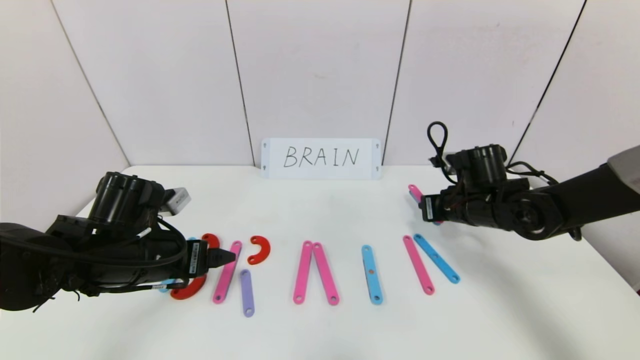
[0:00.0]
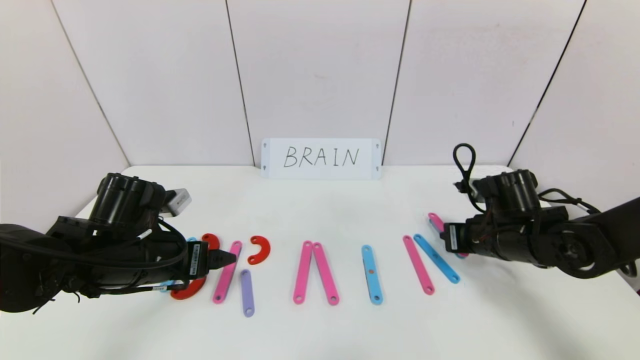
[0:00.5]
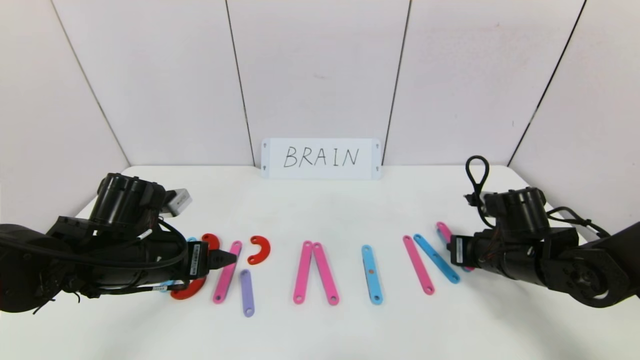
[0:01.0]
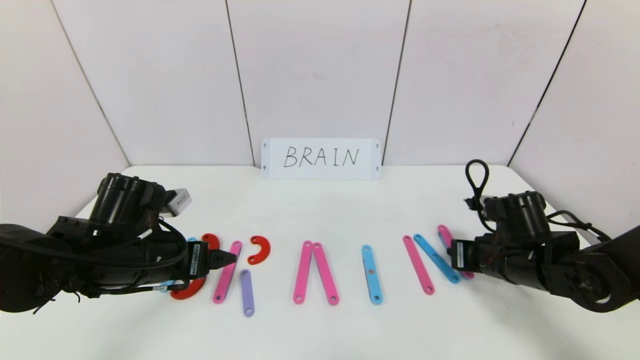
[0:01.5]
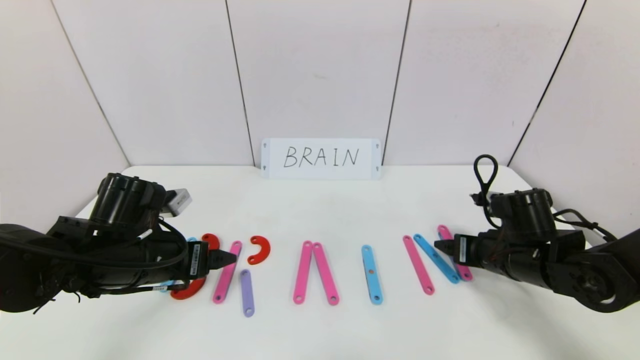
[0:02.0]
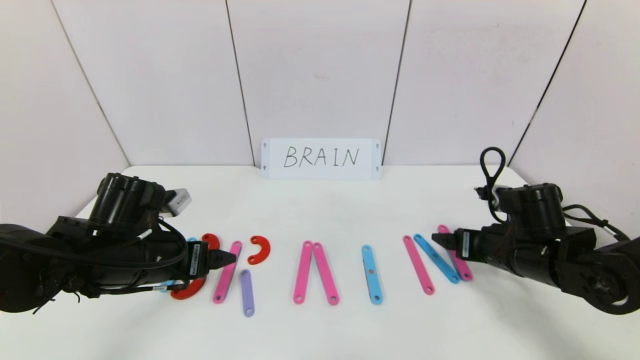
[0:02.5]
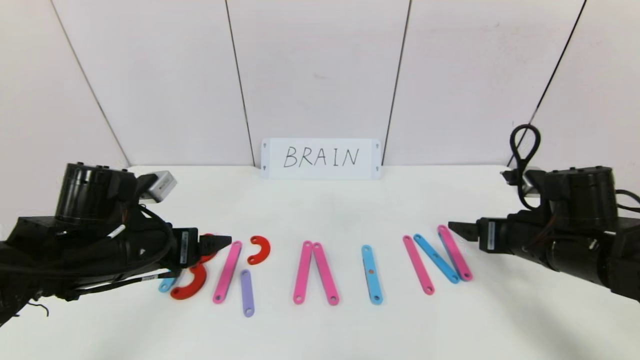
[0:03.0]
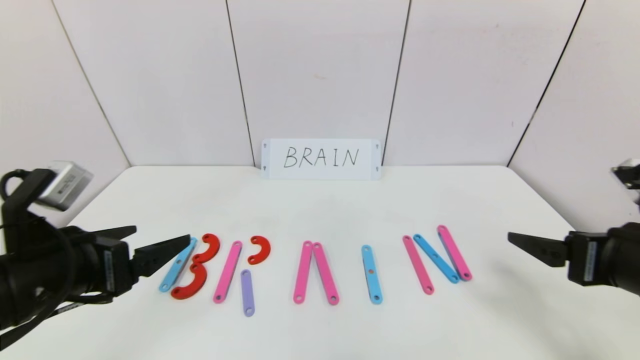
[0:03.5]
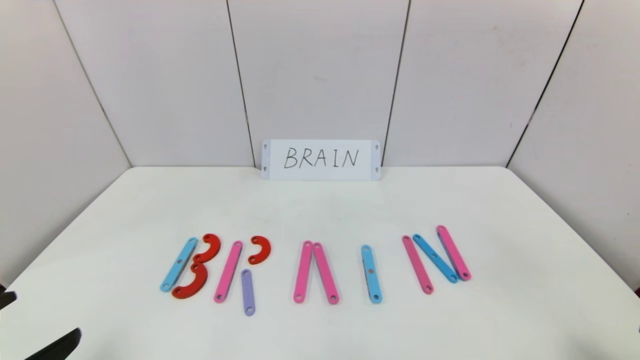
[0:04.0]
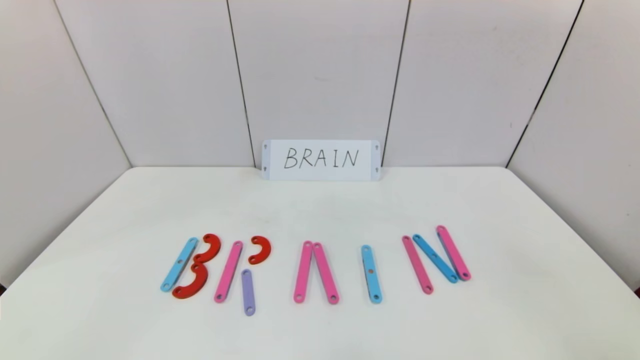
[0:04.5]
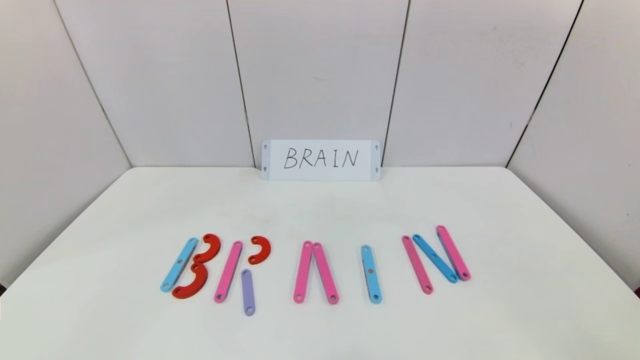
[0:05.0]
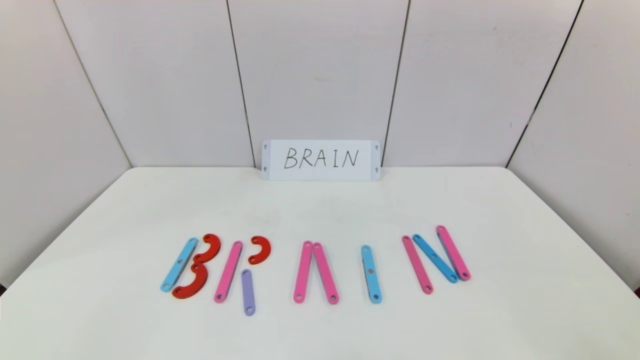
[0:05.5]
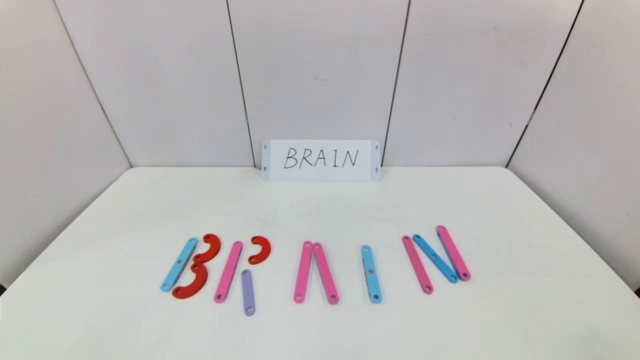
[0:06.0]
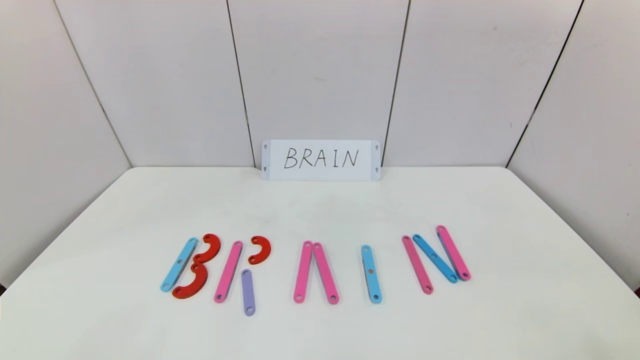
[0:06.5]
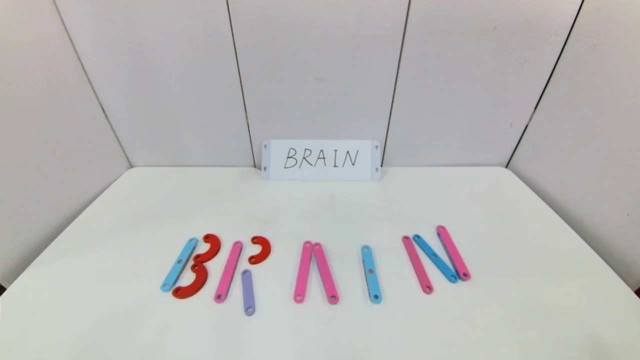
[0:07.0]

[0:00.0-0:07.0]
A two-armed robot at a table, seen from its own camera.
Task of the whole recording: rearrange the word baai as brain.
Step, 0:00.0 to 0:02.5: Place the character N after character I.
0:00.0 to 0:02.0: The right gripper moves backward, some 10 cm, and opens.
0:02.0 to 0:03.5: The left gripper is displaced backward and upward by approximately 10 cm. Meanwhile the right gripper is displaced backward and upward by some 15 cm.
0:03.5 to 0:05.0: The grippers both shift backward by approximately 20 cm.

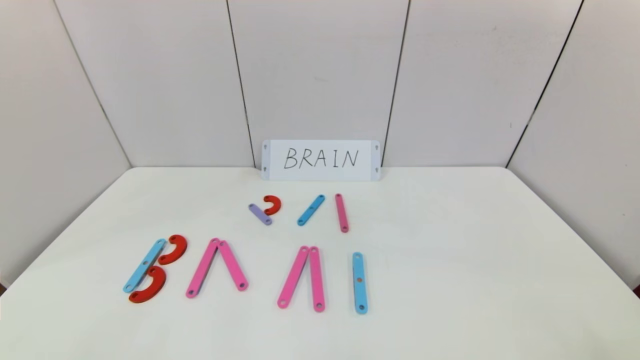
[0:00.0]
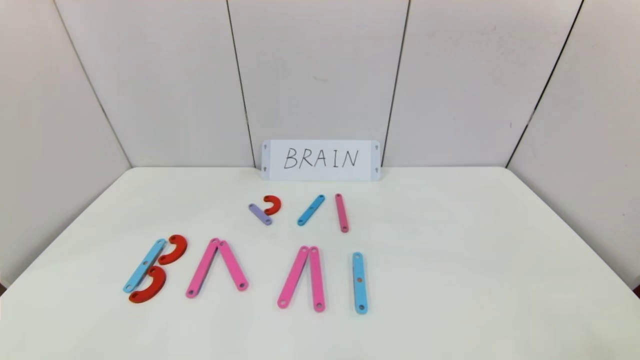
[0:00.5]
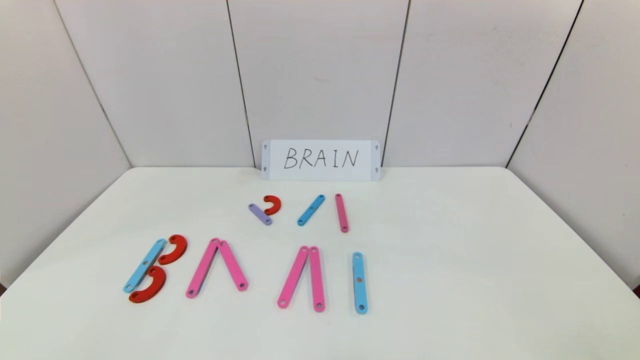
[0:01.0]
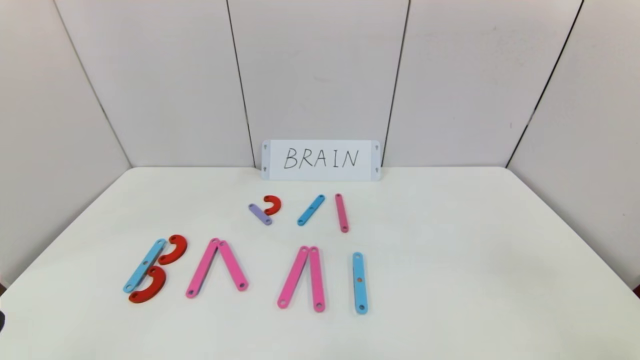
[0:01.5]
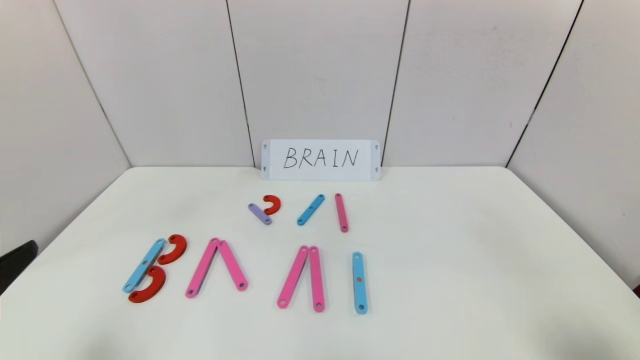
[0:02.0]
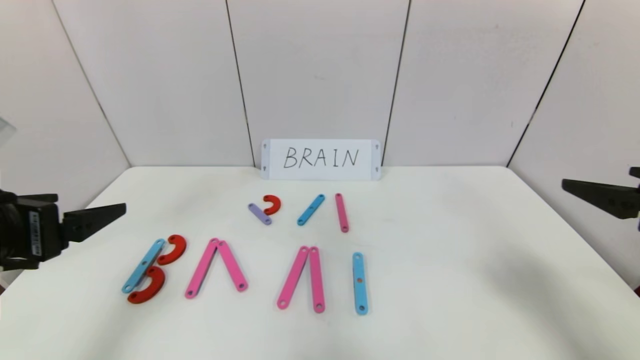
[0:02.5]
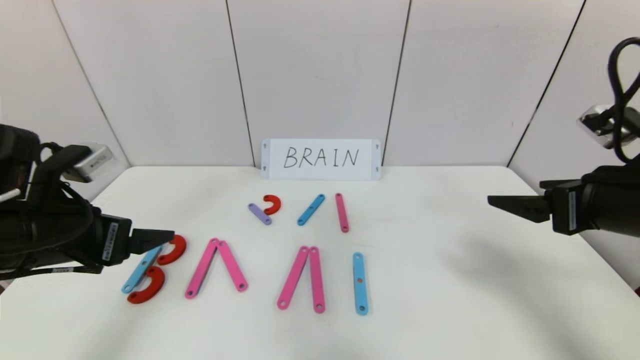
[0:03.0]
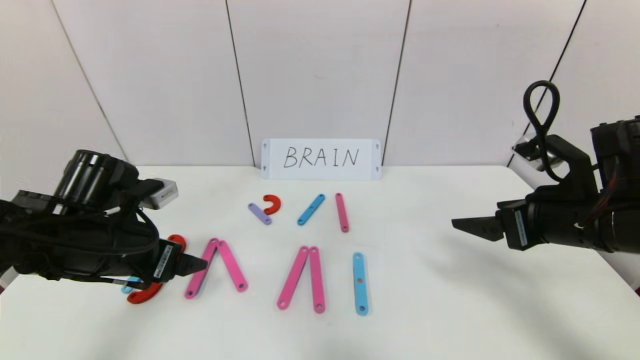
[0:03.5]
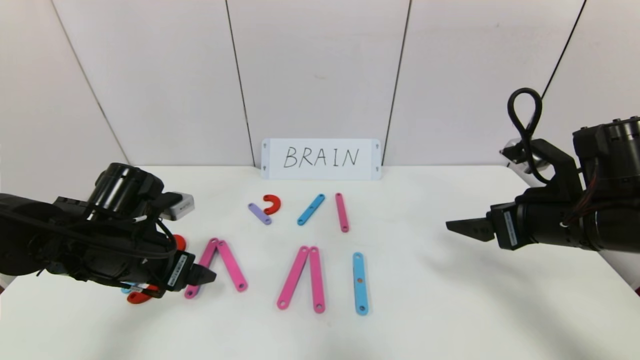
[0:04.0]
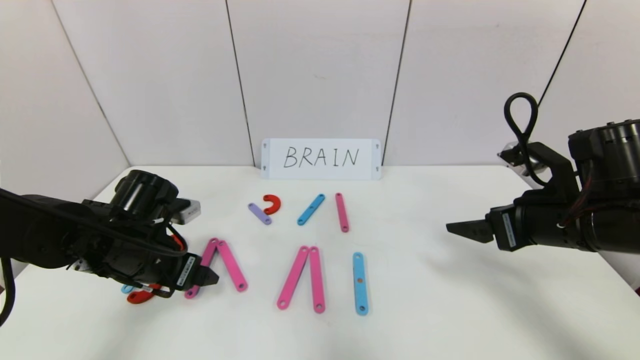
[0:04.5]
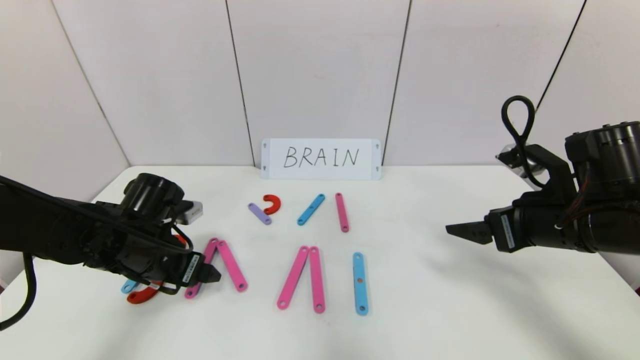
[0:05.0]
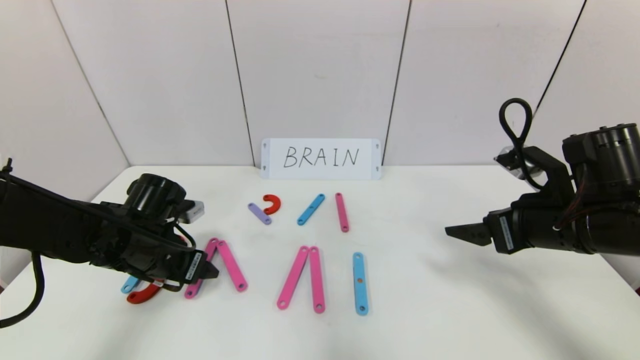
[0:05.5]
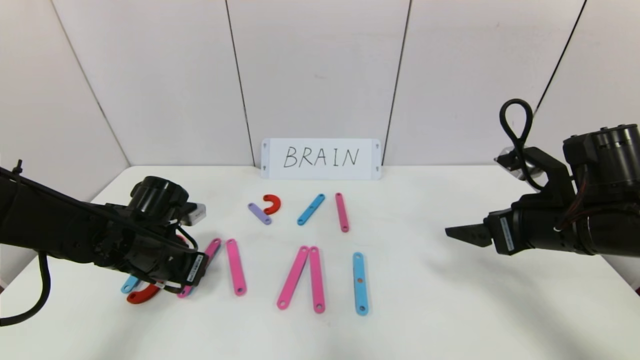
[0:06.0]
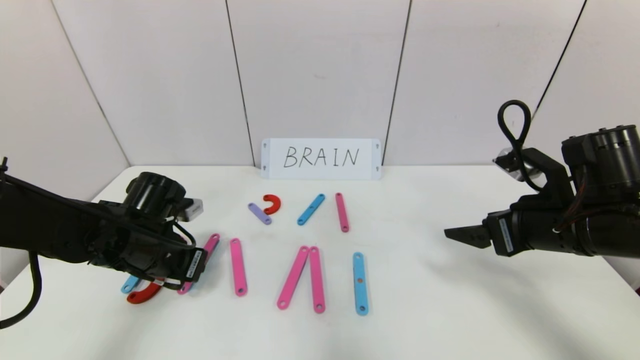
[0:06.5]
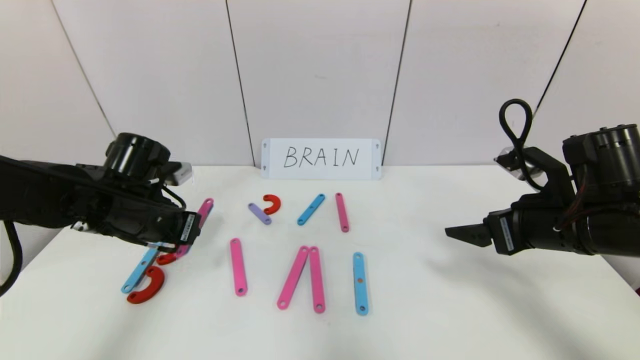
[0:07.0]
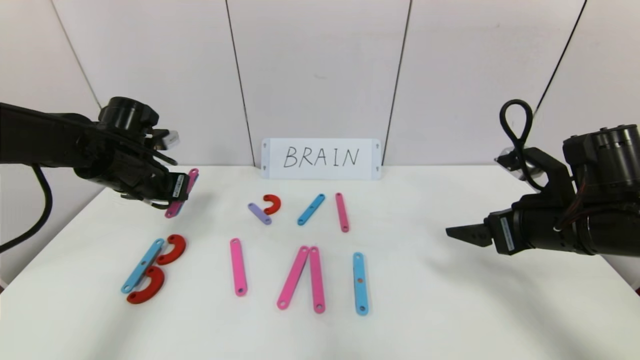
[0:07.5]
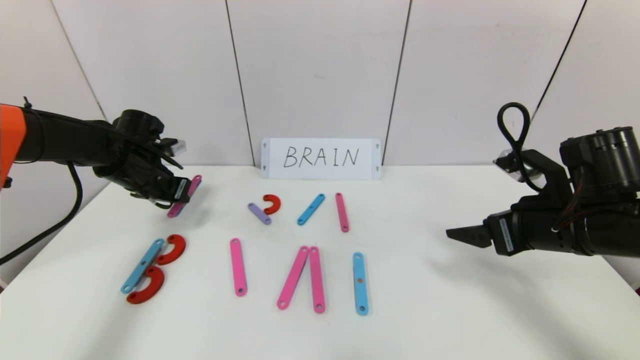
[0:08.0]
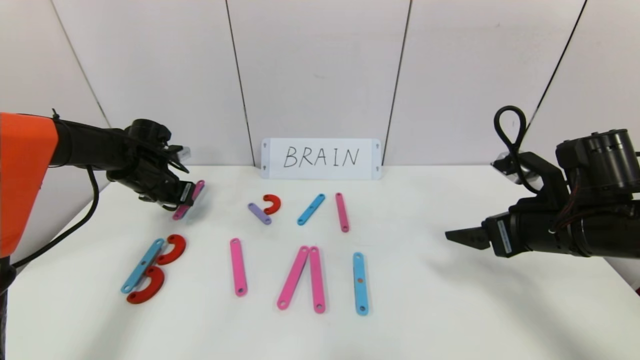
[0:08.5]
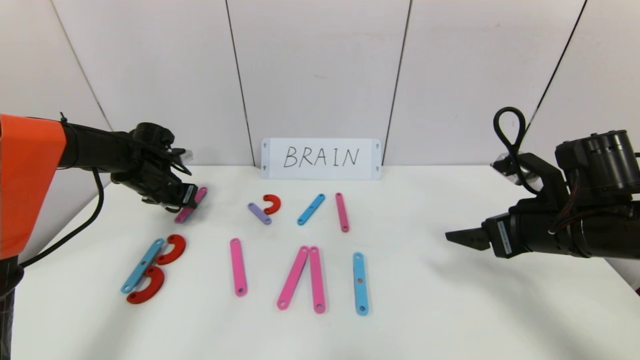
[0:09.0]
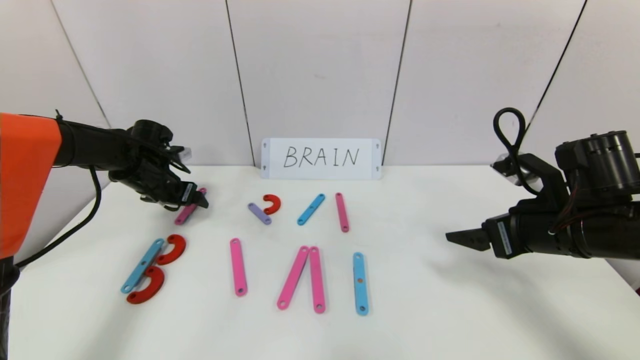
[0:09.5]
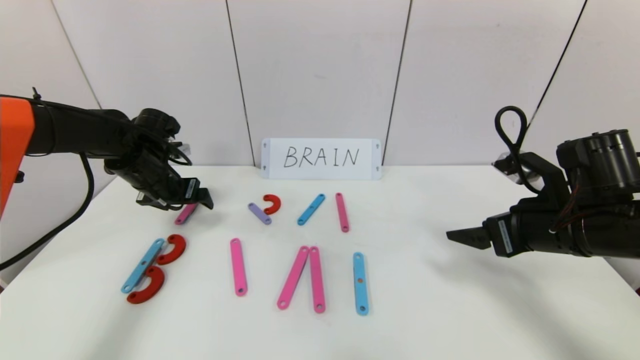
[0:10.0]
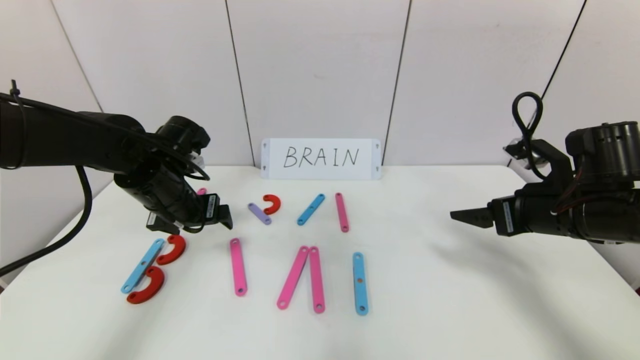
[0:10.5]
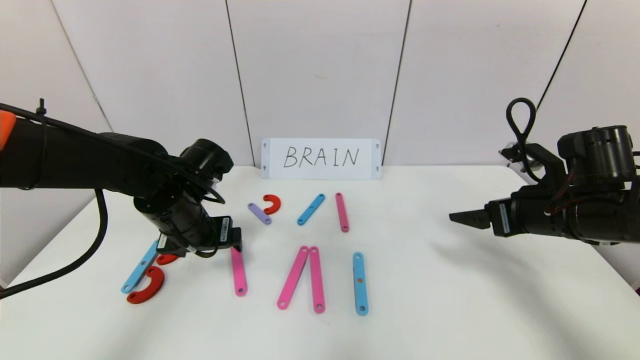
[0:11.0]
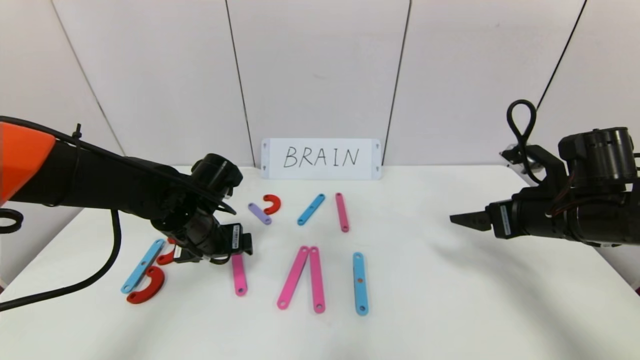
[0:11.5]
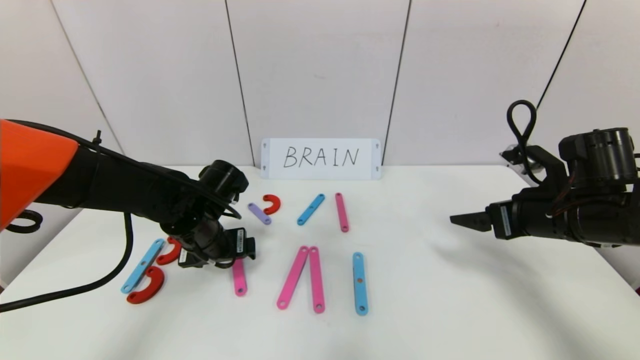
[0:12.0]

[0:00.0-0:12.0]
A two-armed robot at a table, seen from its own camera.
Task of the whole recording: rearrange the word baai as brain.
0:00.0 to 0:02.0: The left gripper moves upward and forward, about 20 cm.
0:02.0 to 0:04.0: The left gripper travels forward and downward by about 20 cm. Meanwhile the right gripper heads forward, covering roughly 20 cm.
0:04.0 to 0:06.0: The left gripper shifts by some 5 cm, and closes.
0:06.0 to 0:08.0: The left gripper heads forward, to the left and upward, covering some 15 cm.
0:08.0 to 0:10.0: The left gripper opens its fingers.
0:10.0 to 0:12.0: The left gripper goes some 15 cm to the right, backward and downward.

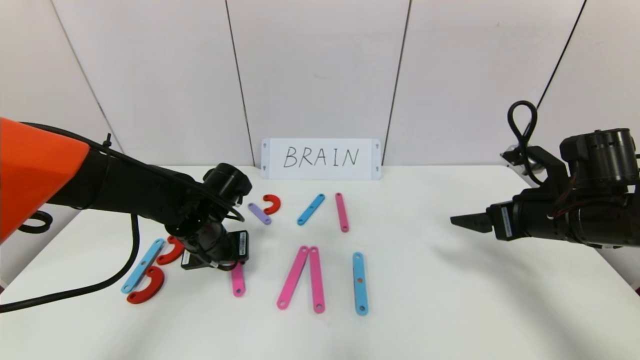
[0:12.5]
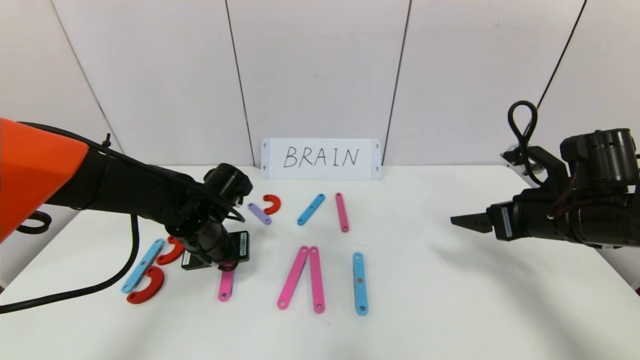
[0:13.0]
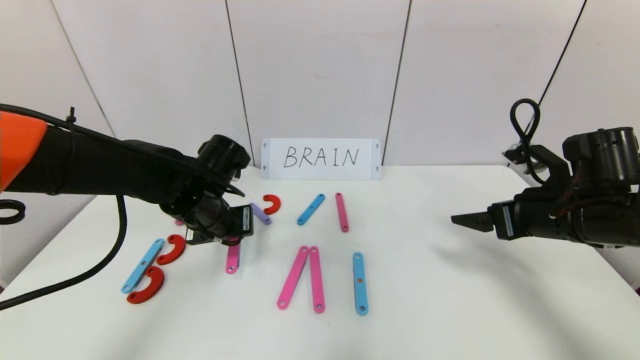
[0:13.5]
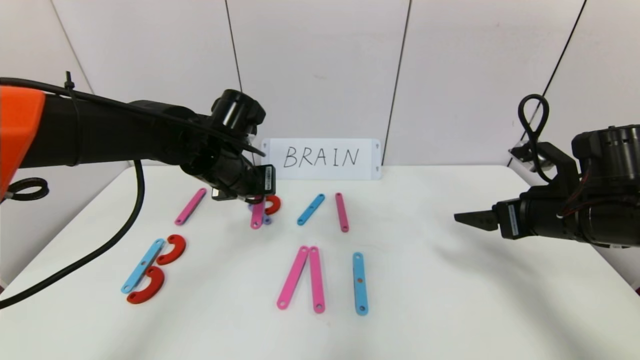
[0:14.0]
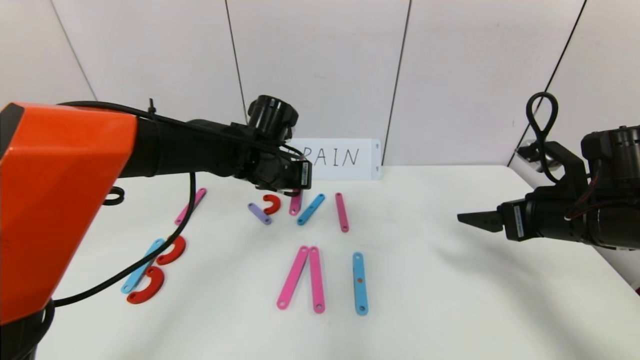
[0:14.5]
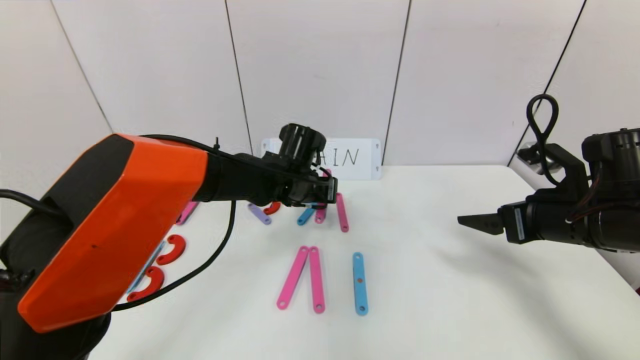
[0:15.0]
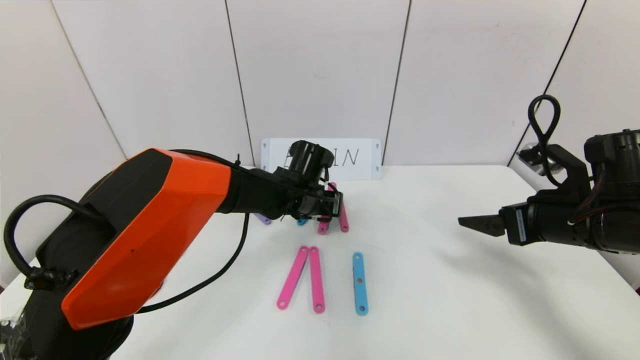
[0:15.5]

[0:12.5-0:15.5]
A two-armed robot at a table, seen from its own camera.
Task of the whole recording: rearrange the word baai as brain.
0:12.5 to 0:14.0: The left gripper travels upward by about 10 cm.
0:14.0 to 0:15.5: The left gripper heads to the right, downward and forward, covering roughly 15 cm.
